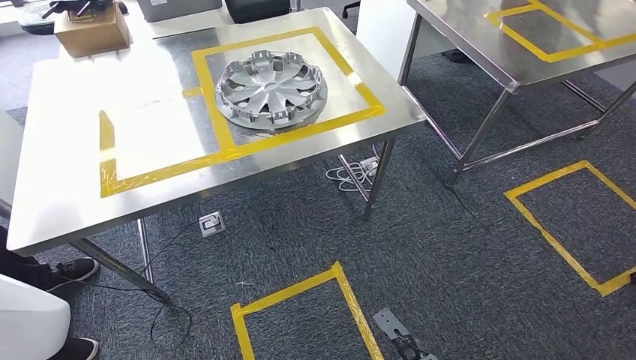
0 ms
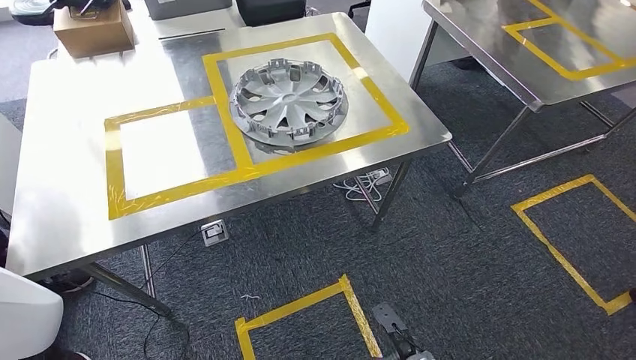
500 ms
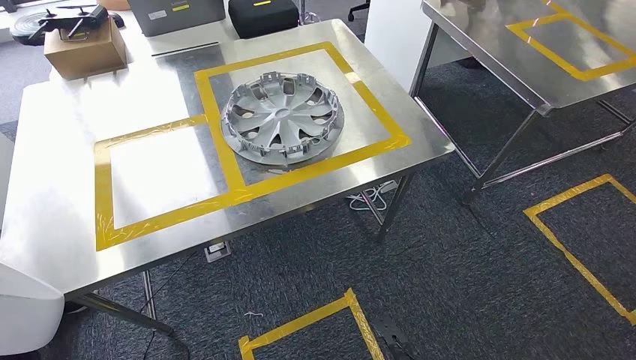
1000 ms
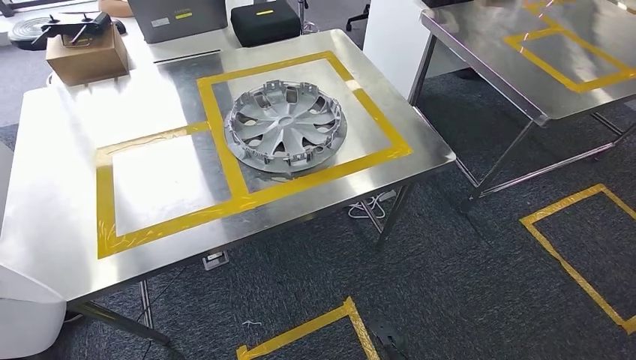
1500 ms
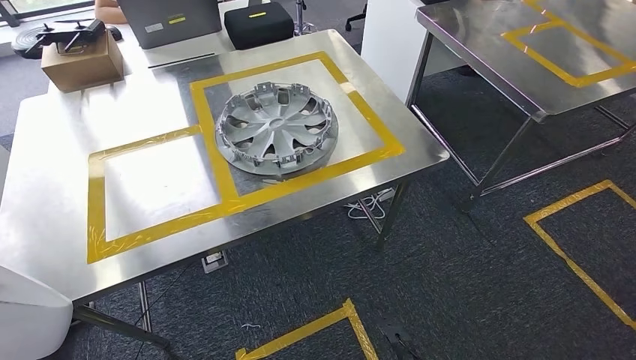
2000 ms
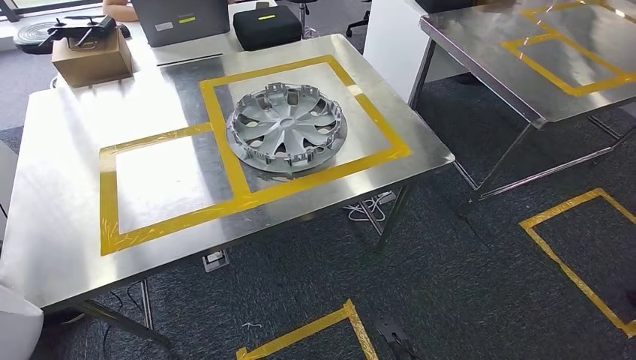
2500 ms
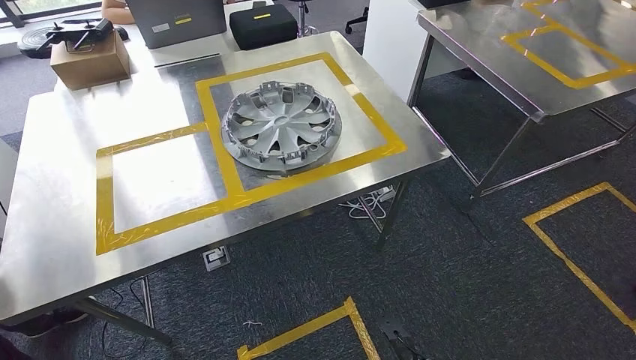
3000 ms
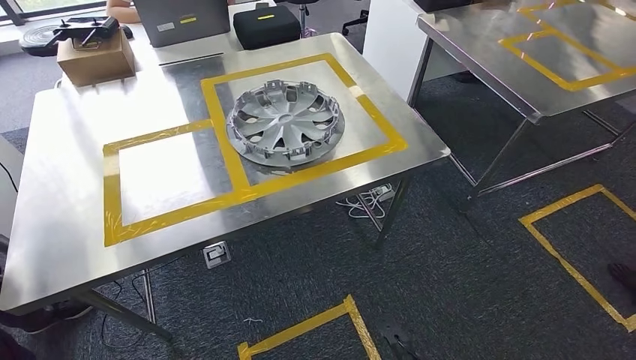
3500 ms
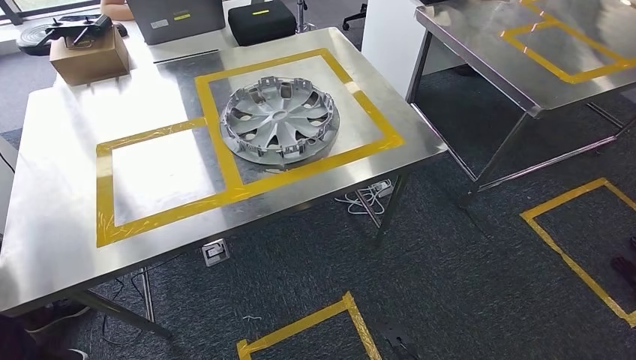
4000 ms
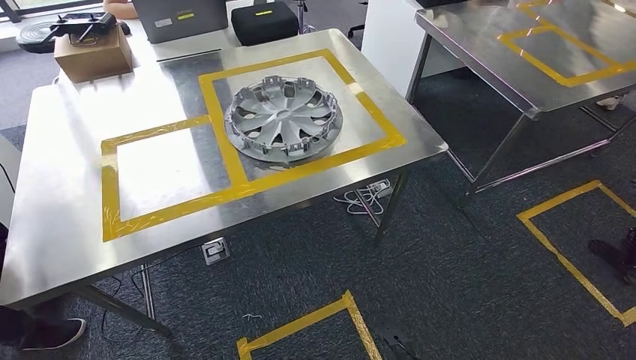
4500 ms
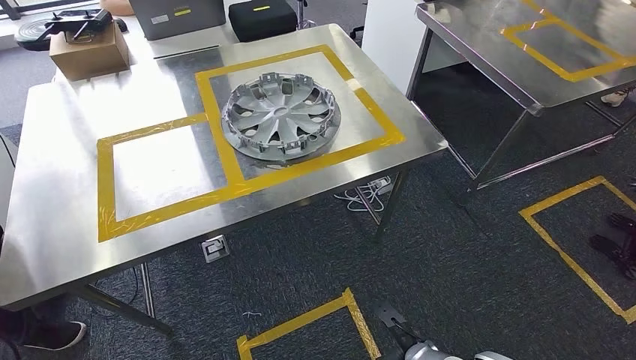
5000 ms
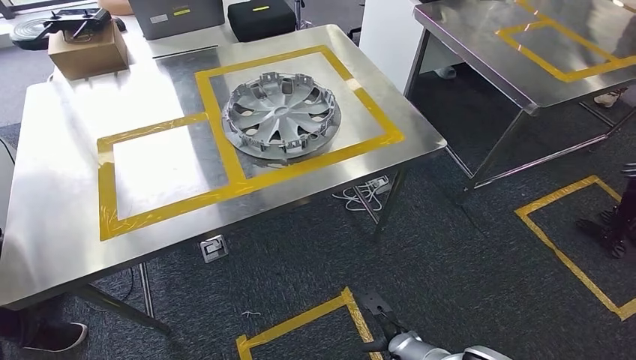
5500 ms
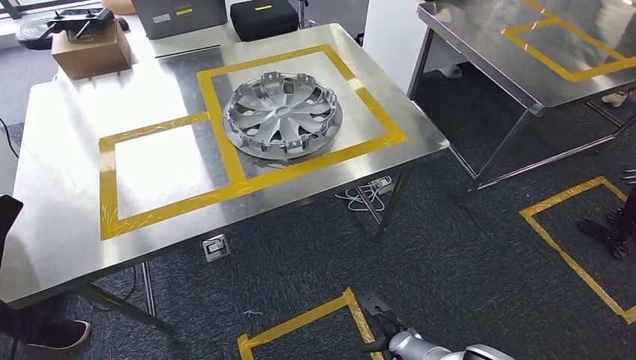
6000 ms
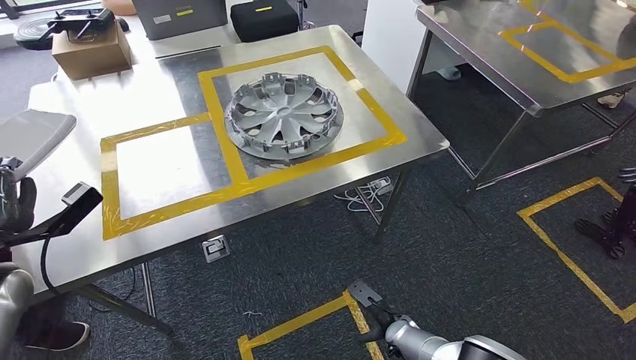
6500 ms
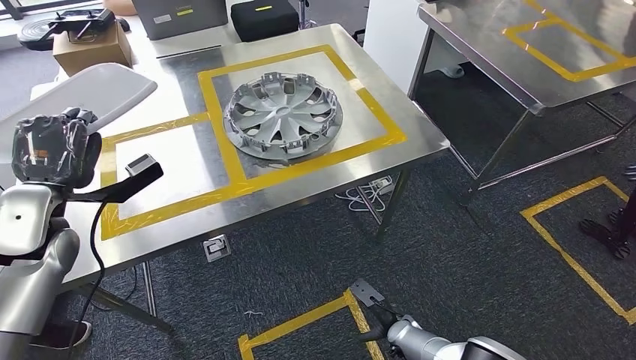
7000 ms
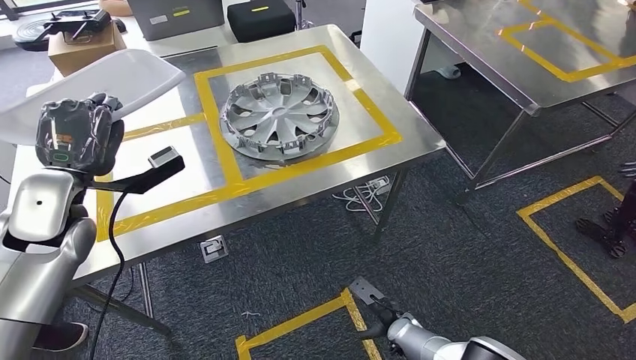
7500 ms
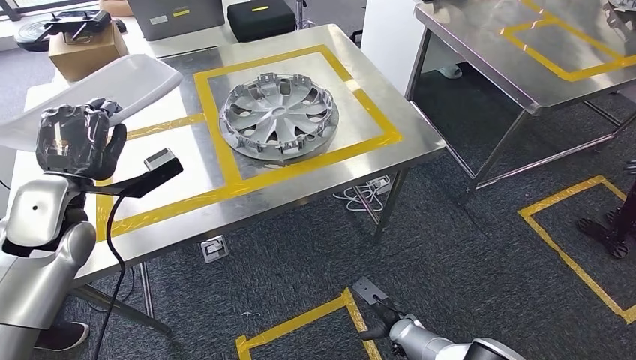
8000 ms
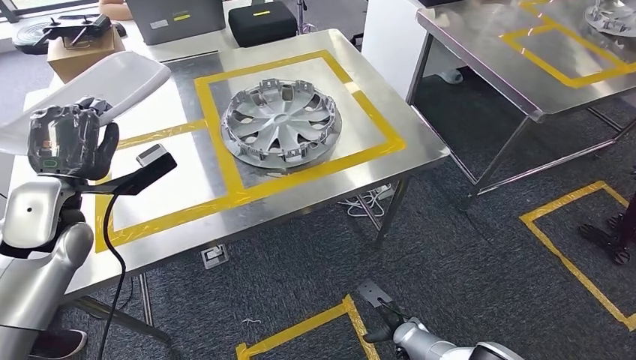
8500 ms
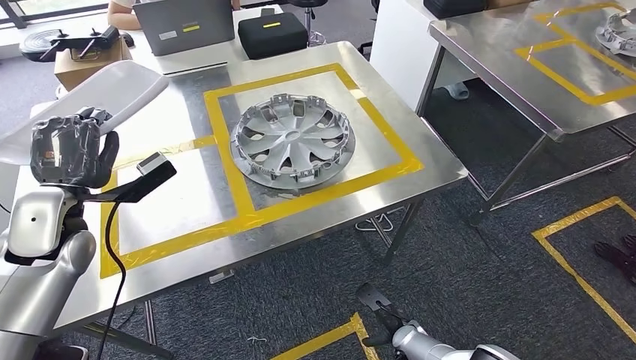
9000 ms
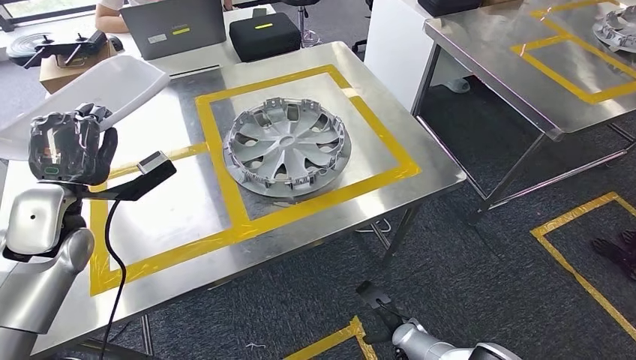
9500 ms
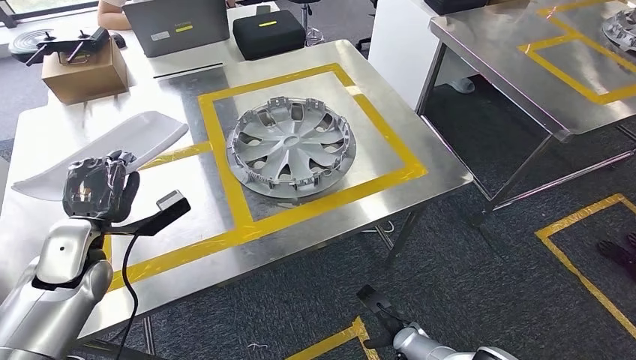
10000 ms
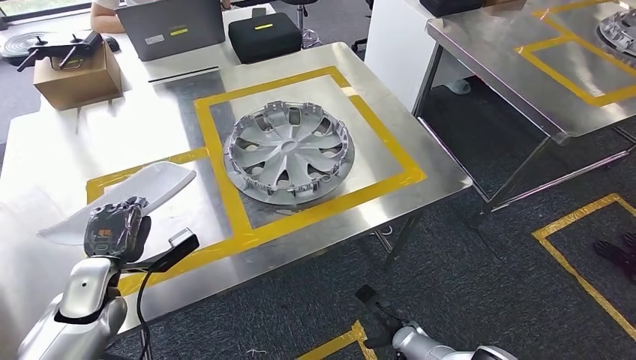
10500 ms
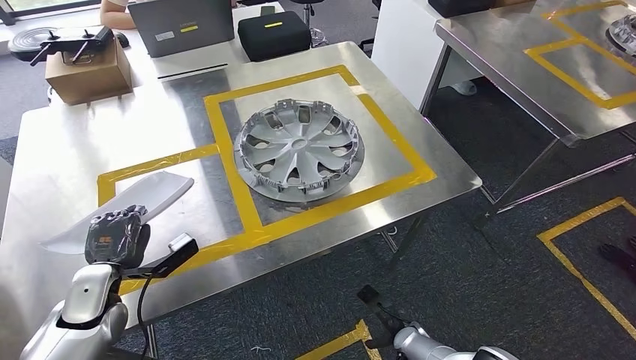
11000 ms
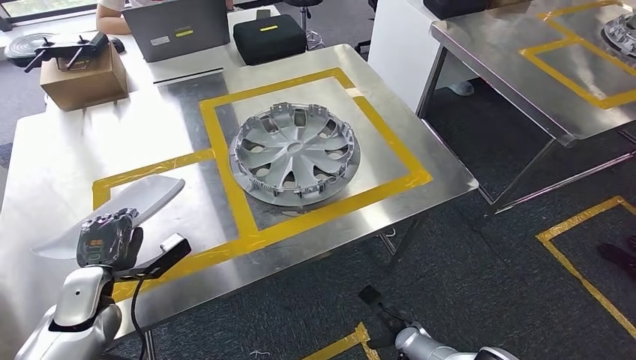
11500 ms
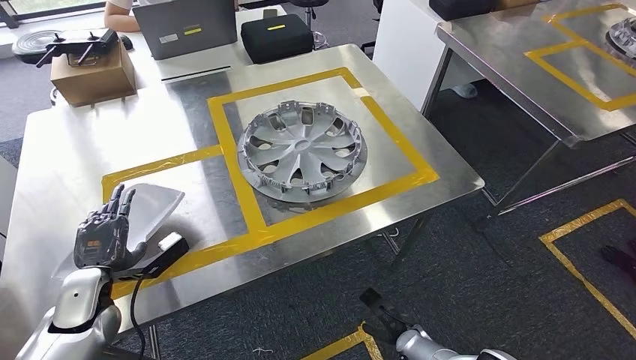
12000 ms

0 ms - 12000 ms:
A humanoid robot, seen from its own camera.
Step, 0 ms - 4000 ms: Move the small parts to the workbench.

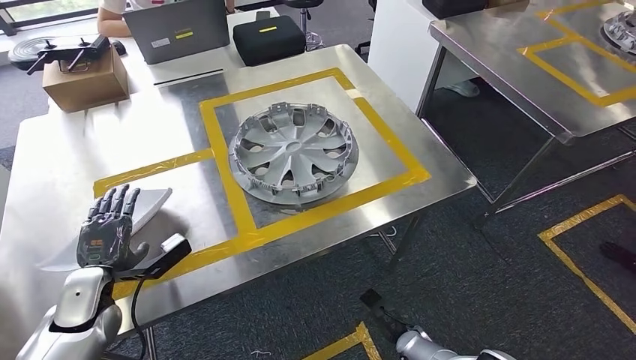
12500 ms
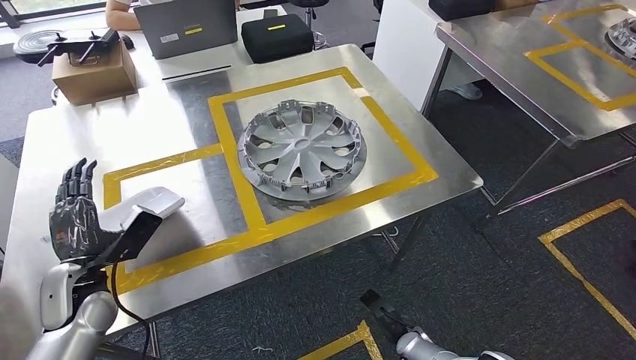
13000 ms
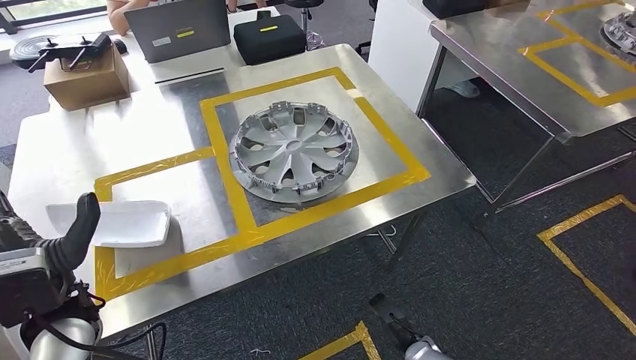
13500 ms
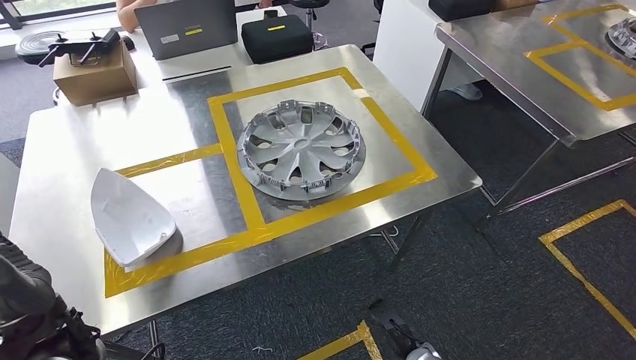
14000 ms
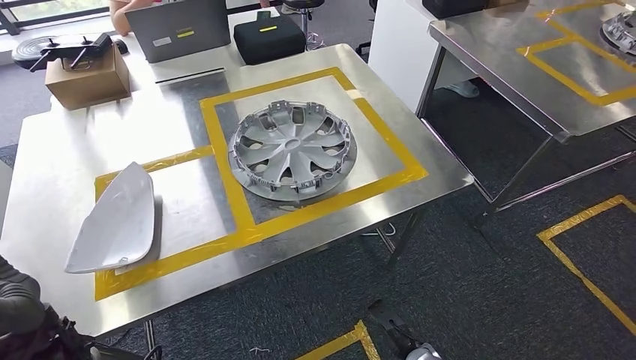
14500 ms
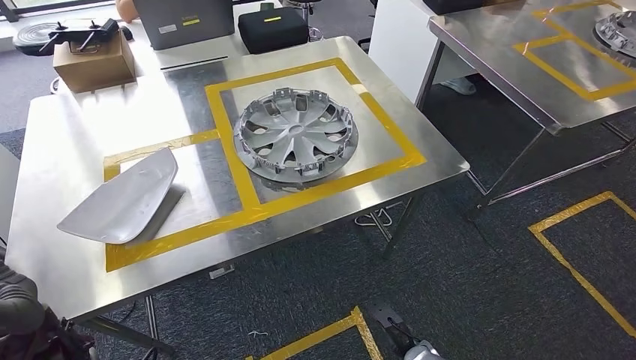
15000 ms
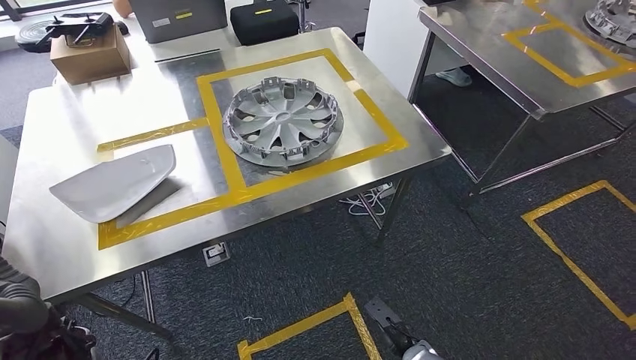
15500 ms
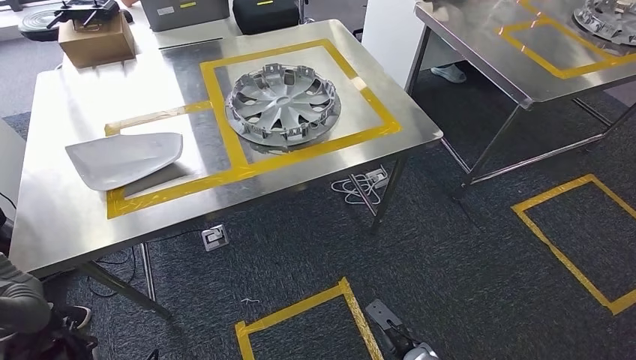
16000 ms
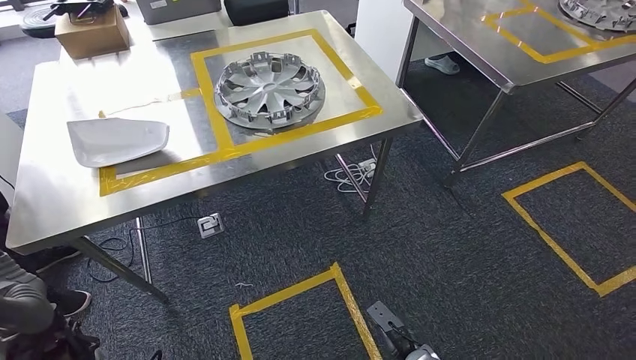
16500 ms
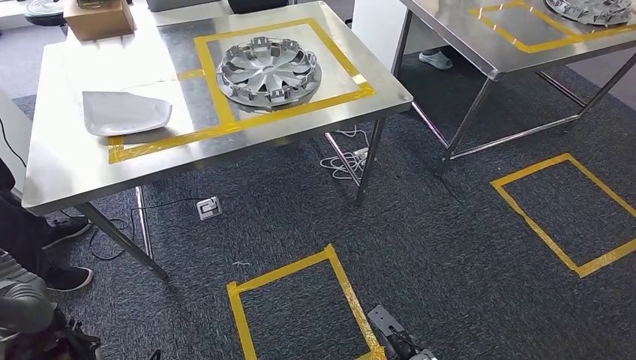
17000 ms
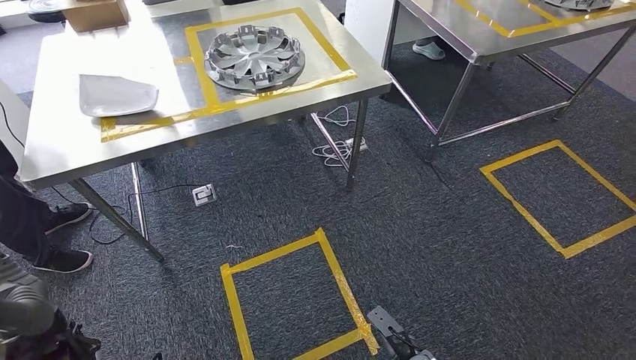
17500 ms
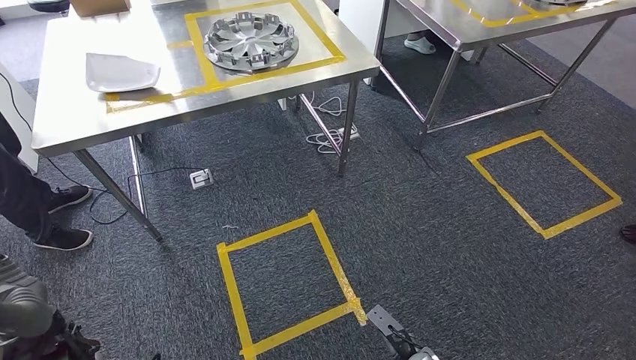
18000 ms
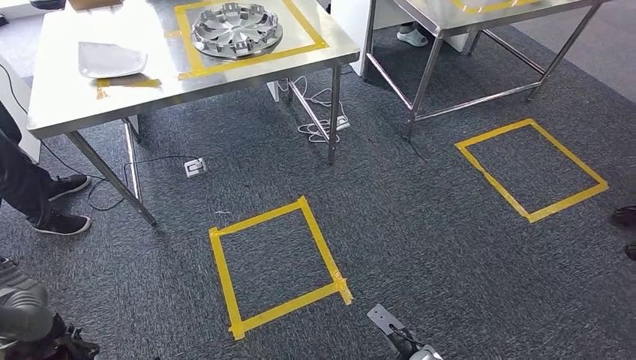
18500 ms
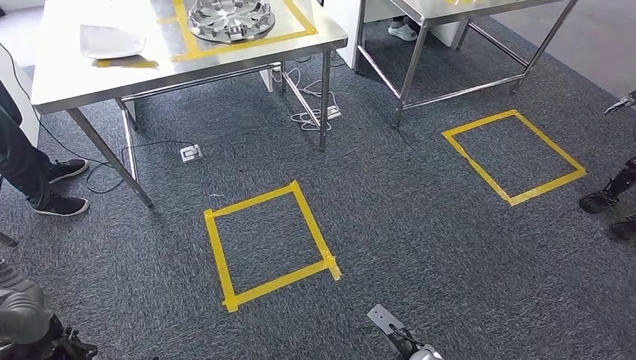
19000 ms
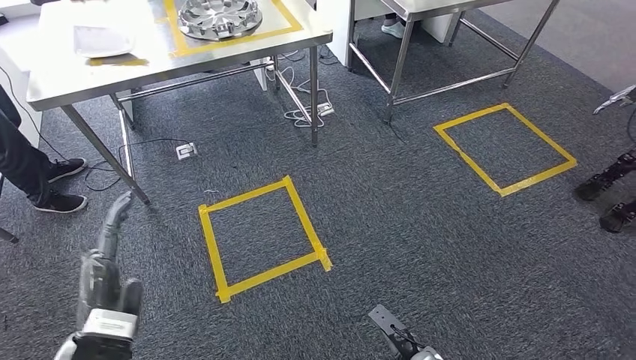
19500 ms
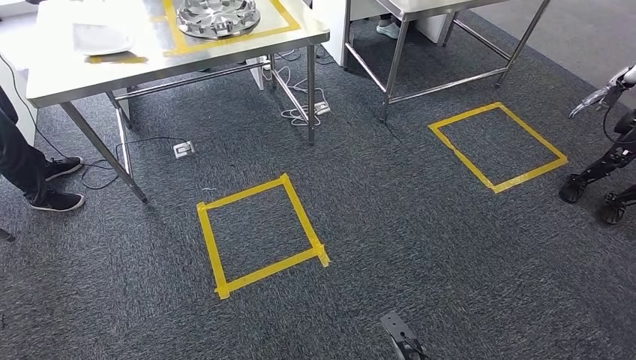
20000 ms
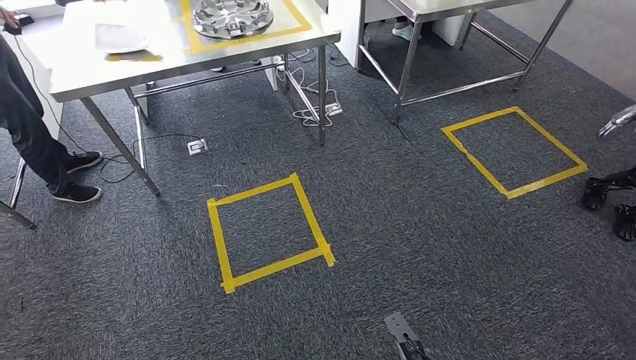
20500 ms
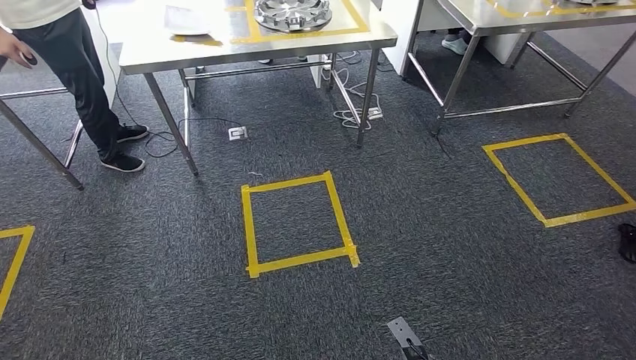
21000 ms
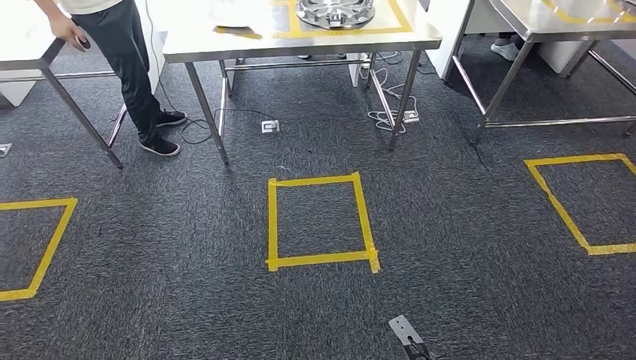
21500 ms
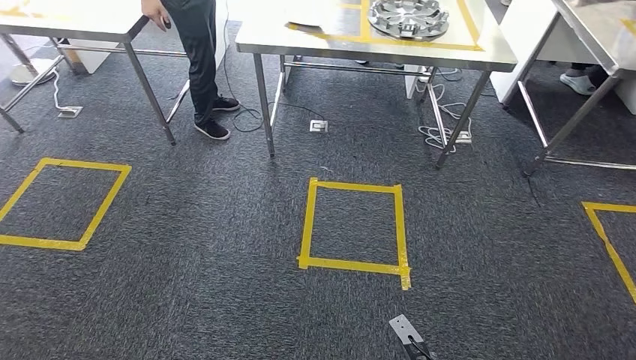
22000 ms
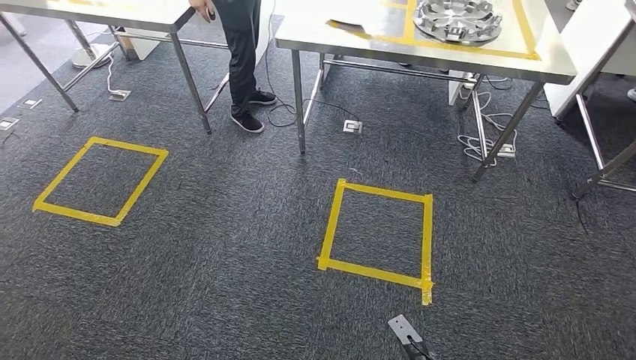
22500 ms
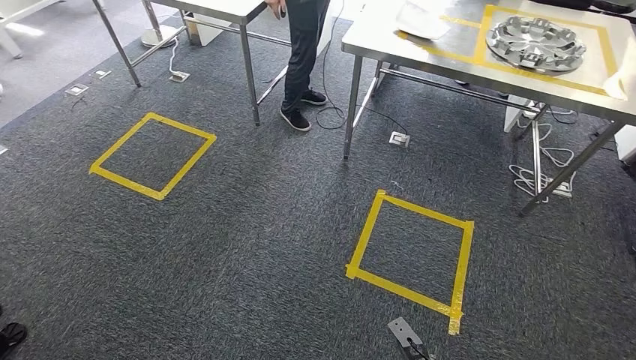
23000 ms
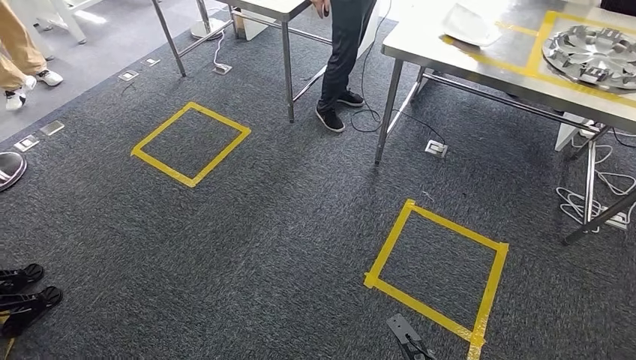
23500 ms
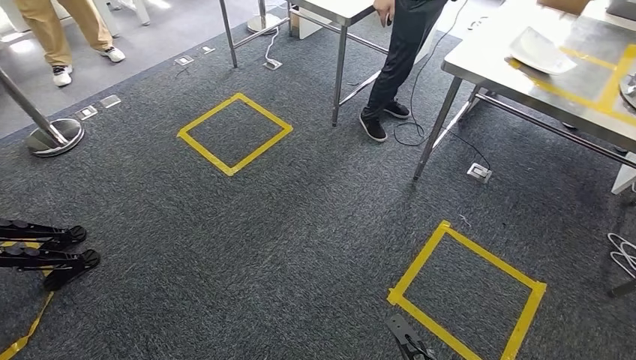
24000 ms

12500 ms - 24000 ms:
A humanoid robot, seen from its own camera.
12500 ms - 14500 ms: The left hand is displaced upward and backward by roughly 15 cm.
